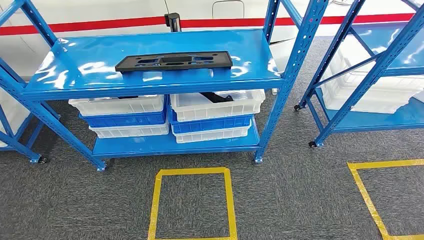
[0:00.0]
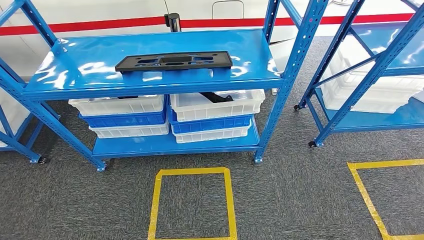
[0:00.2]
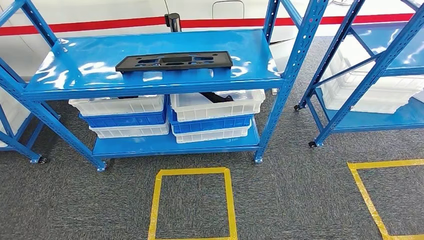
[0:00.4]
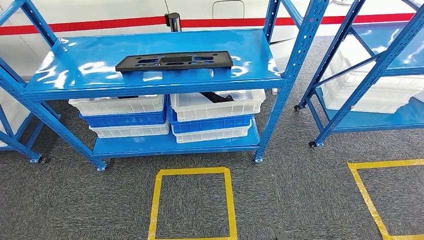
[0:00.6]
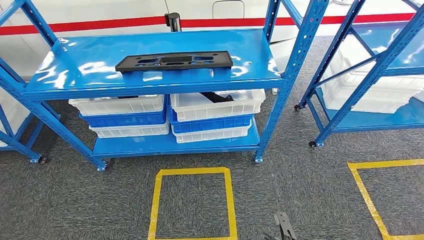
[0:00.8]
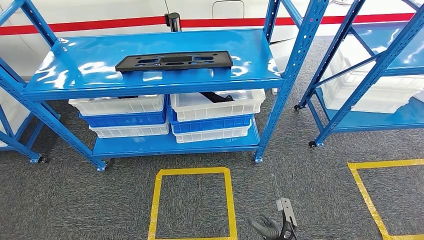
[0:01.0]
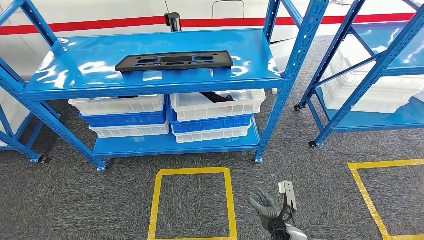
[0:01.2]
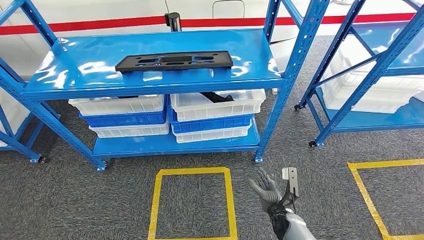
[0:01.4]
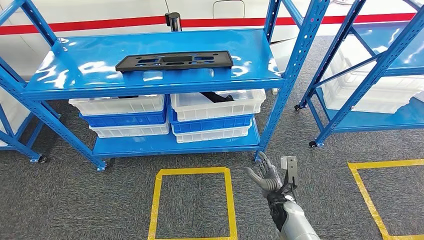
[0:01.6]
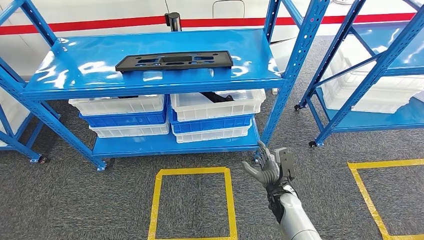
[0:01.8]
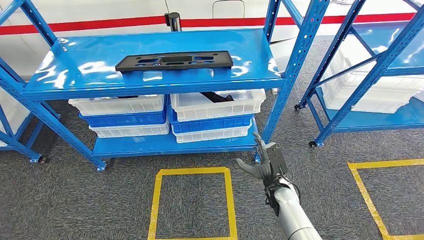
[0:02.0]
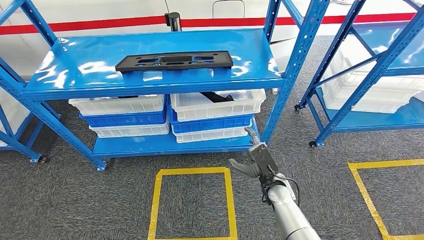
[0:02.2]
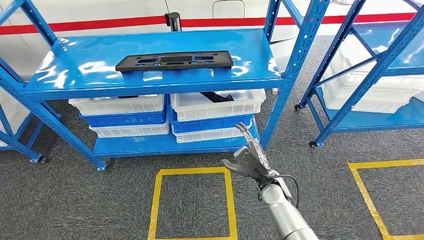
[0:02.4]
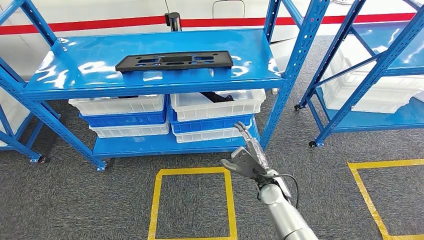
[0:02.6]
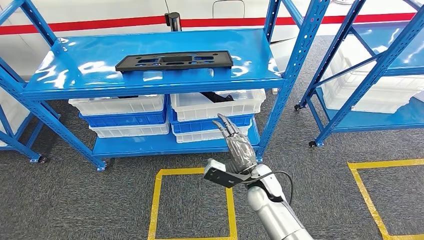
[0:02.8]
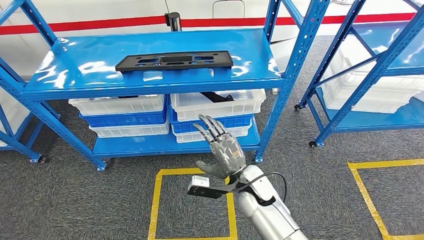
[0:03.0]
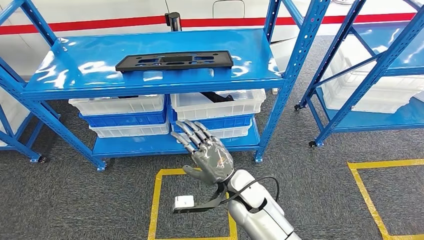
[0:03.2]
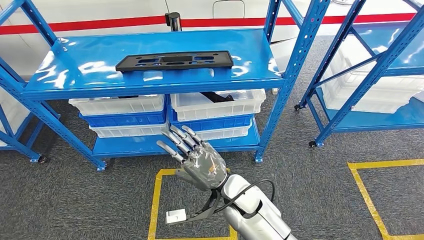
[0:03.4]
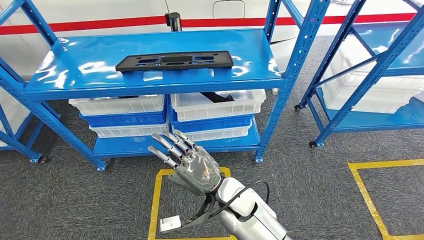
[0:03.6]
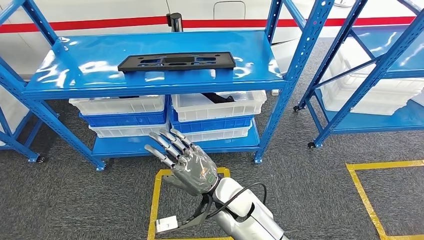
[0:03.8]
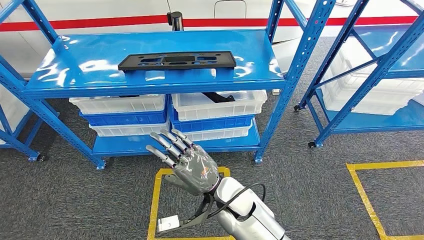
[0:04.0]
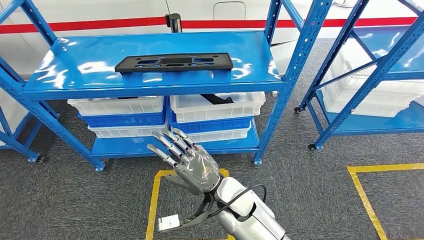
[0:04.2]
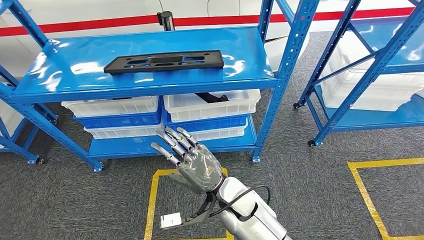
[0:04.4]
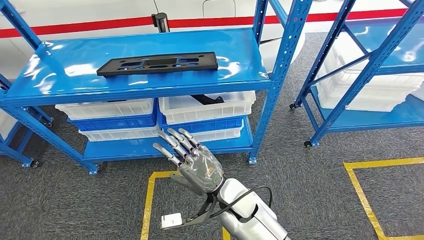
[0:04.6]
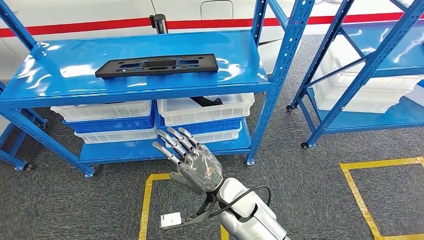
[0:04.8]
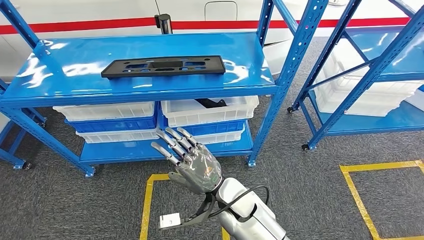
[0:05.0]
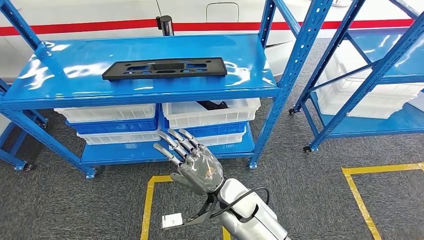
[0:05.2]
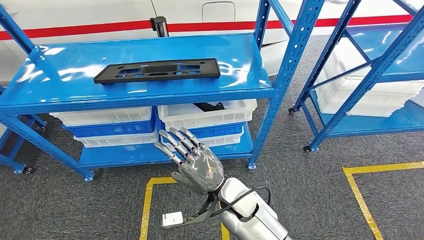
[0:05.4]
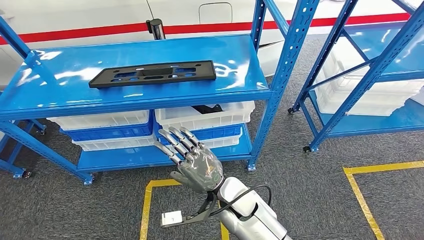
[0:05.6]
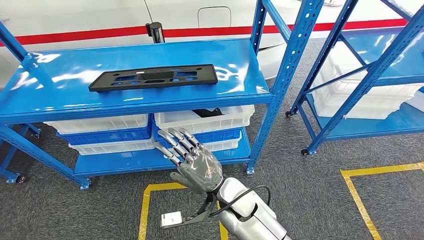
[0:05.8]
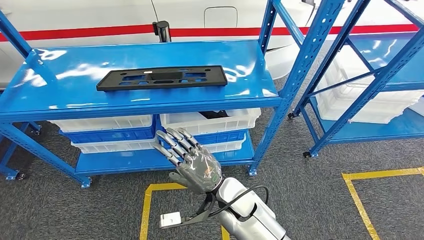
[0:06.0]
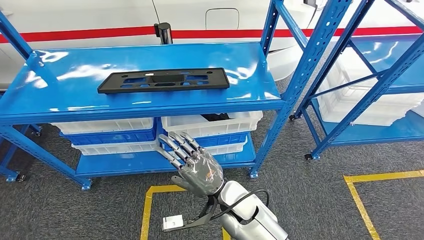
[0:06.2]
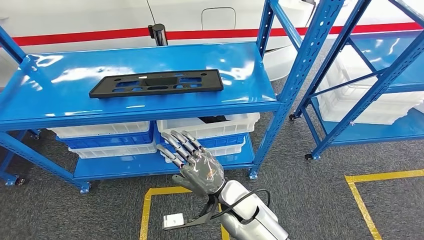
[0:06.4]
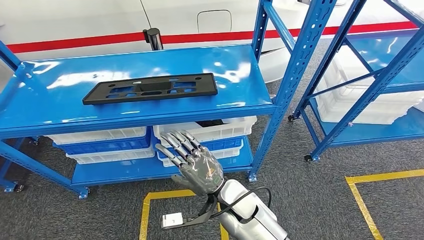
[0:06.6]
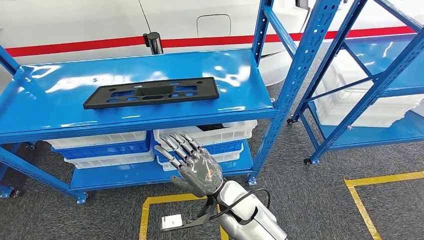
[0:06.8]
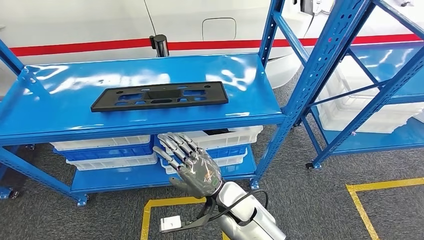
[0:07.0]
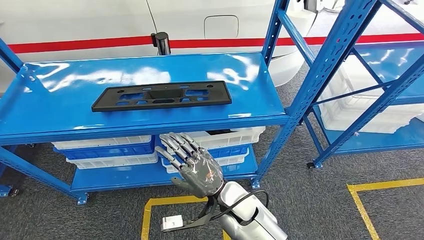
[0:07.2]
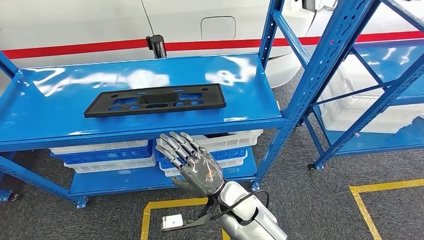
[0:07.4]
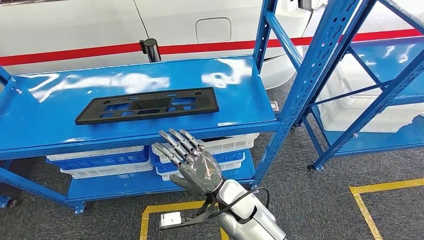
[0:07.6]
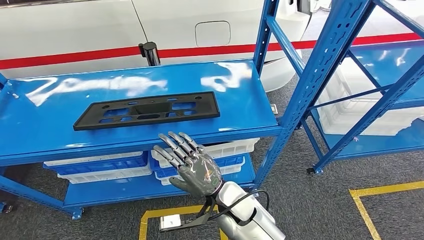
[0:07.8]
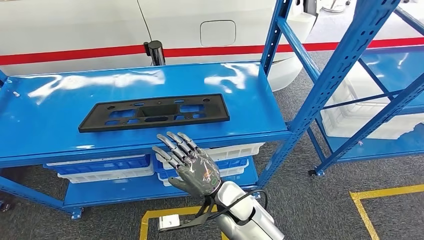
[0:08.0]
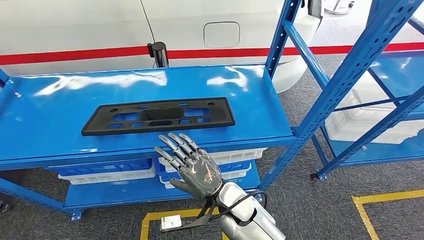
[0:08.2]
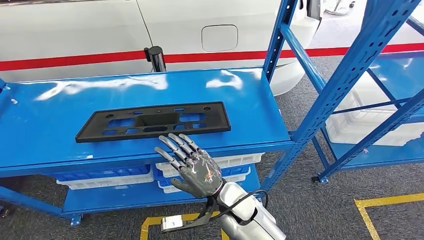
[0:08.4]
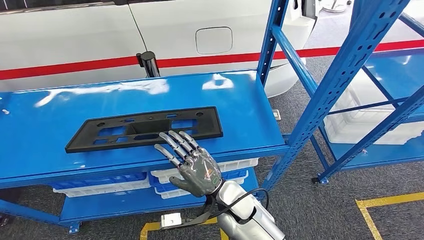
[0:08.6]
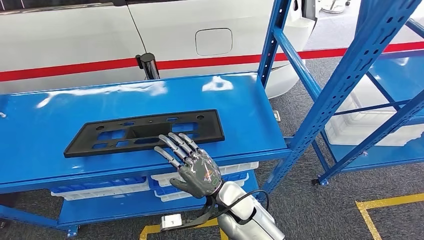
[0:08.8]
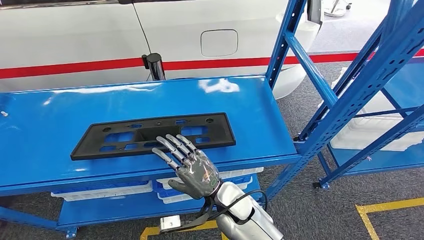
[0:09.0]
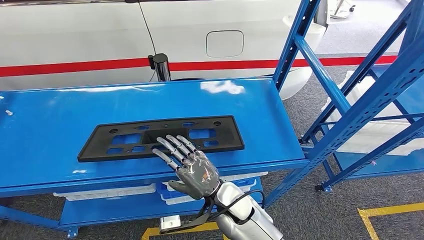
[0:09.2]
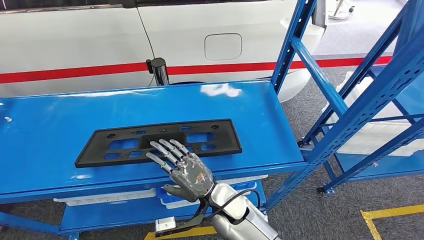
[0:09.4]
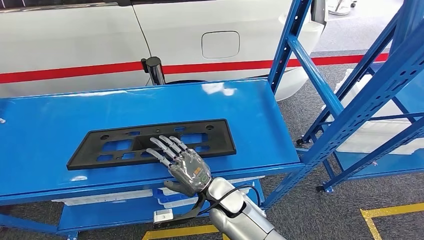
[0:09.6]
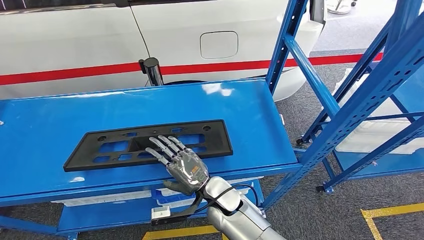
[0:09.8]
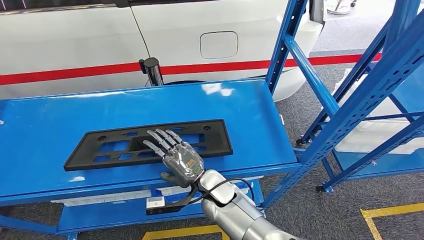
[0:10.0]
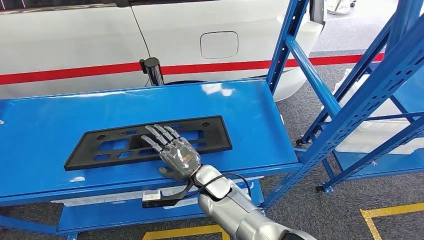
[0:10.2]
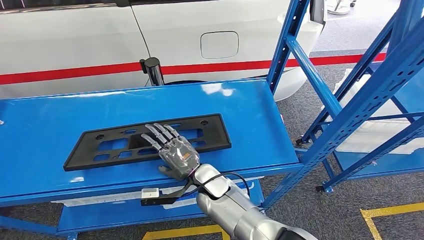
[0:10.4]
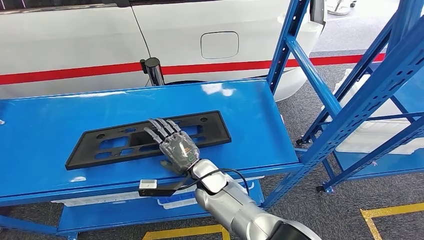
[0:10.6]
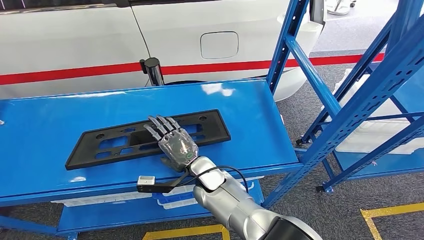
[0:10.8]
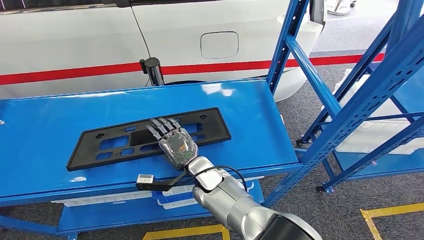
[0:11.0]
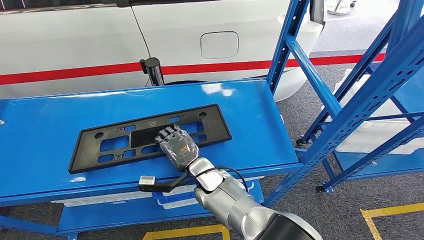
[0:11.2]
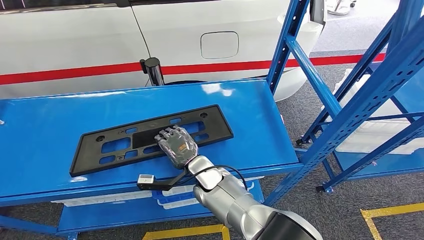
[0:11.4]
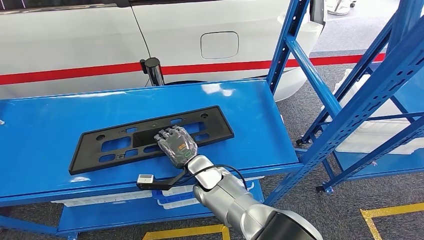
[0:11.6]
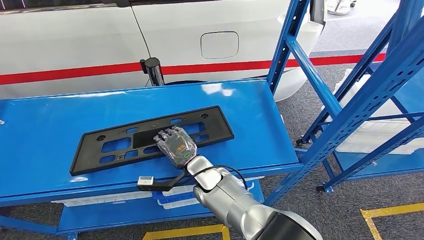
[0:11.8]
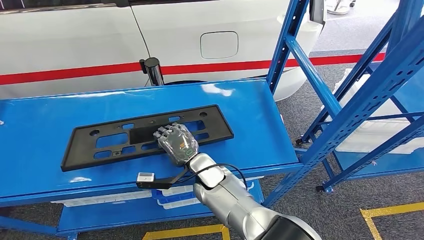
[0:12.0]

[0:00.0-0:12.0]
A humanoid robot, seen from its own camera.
0:01.6 to 0:03.0: The right hand heads upward and to the left, covering some 20 cm.
0:10.4 to 0:12.0: The hands make only small movements.

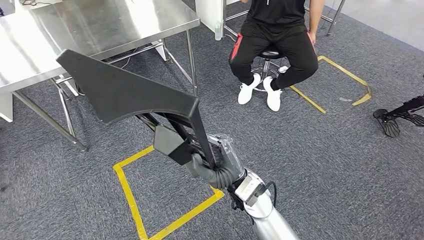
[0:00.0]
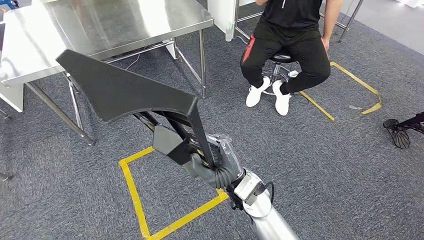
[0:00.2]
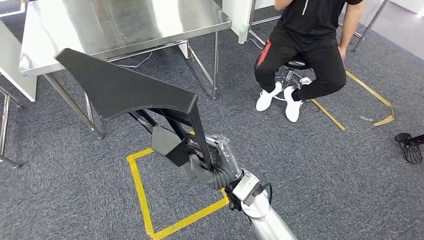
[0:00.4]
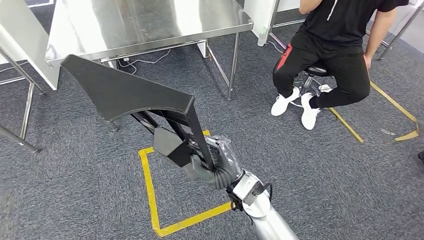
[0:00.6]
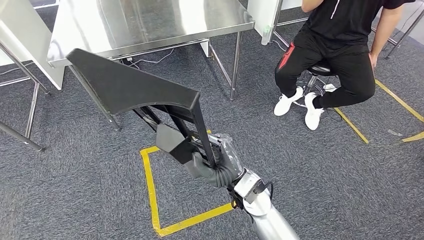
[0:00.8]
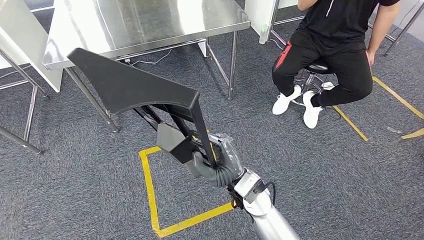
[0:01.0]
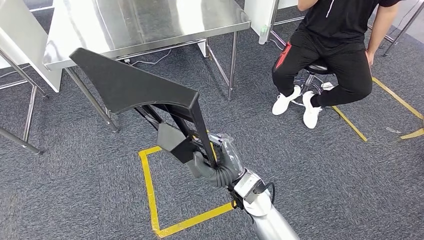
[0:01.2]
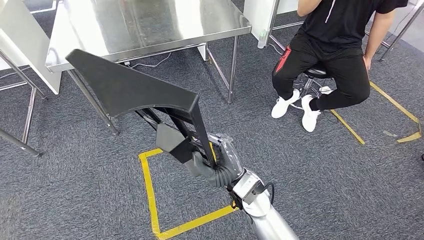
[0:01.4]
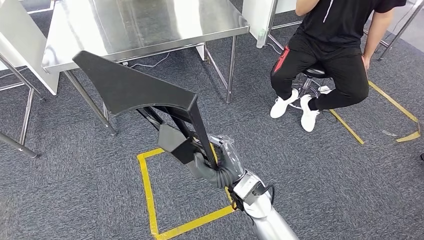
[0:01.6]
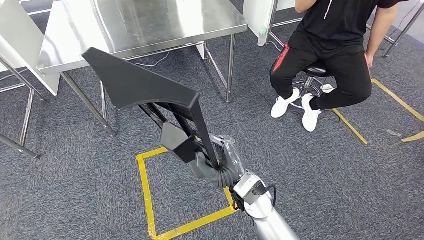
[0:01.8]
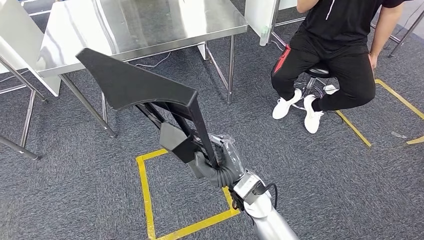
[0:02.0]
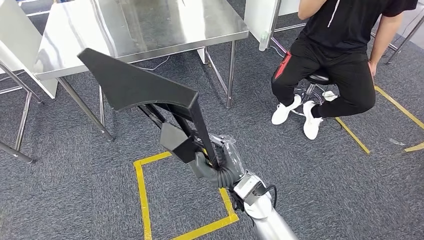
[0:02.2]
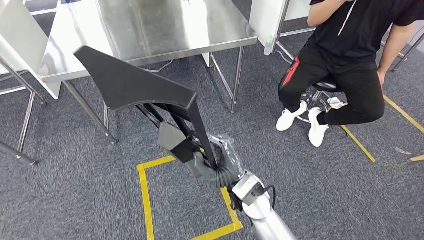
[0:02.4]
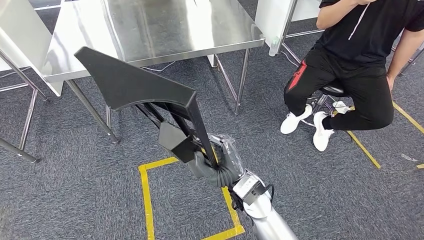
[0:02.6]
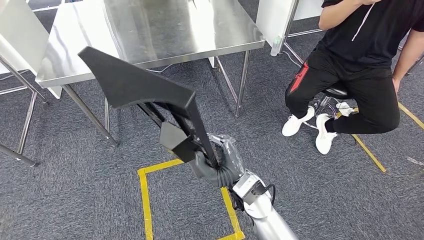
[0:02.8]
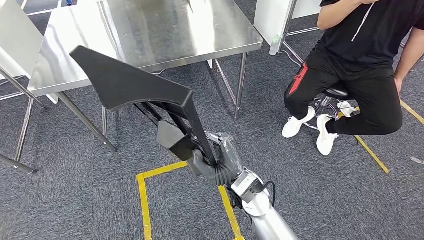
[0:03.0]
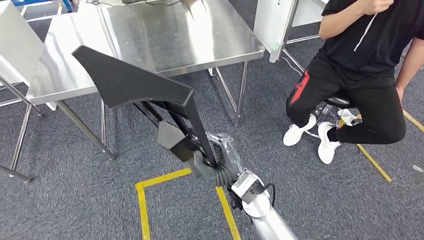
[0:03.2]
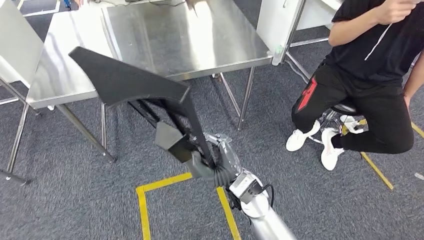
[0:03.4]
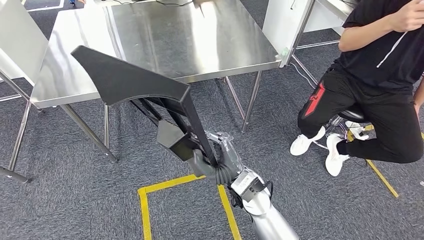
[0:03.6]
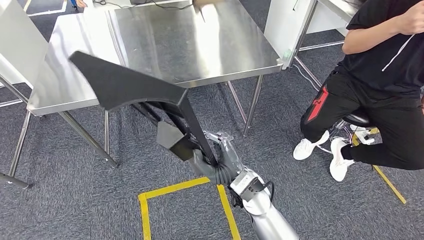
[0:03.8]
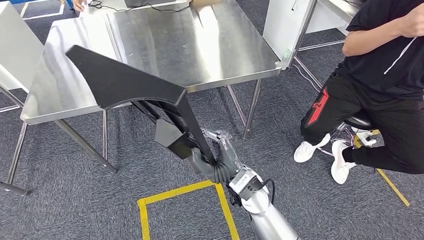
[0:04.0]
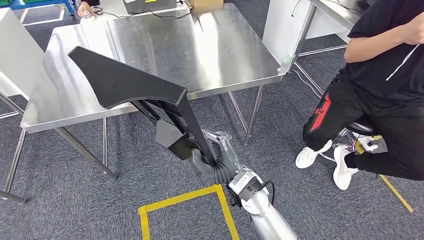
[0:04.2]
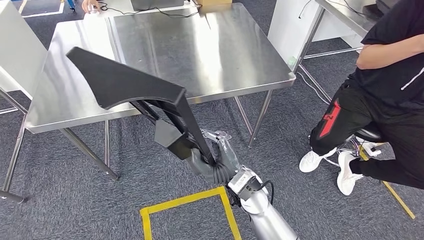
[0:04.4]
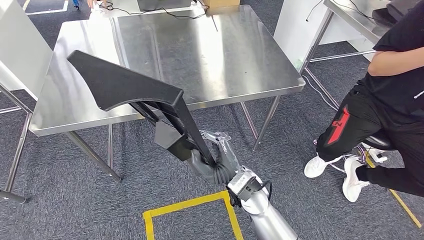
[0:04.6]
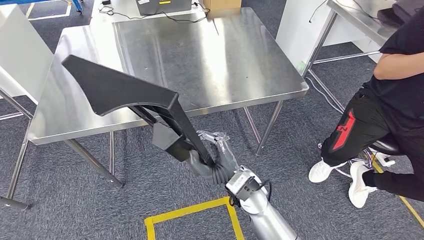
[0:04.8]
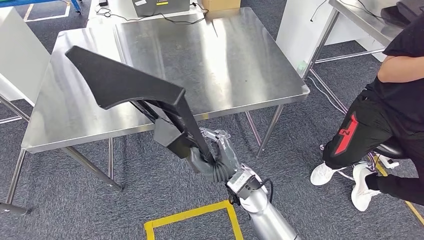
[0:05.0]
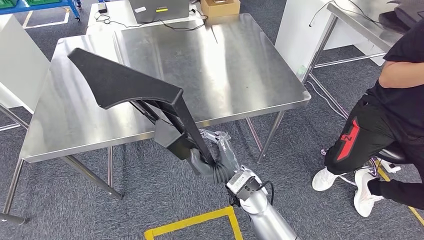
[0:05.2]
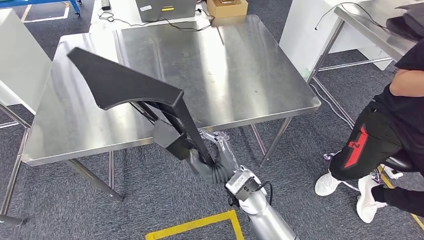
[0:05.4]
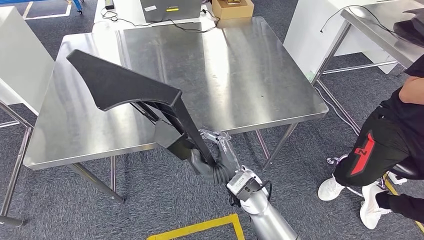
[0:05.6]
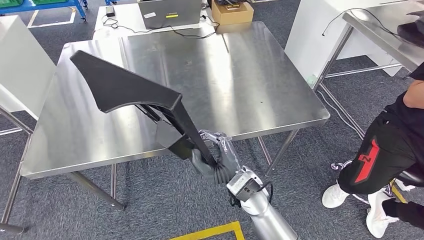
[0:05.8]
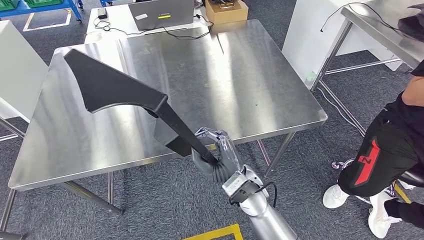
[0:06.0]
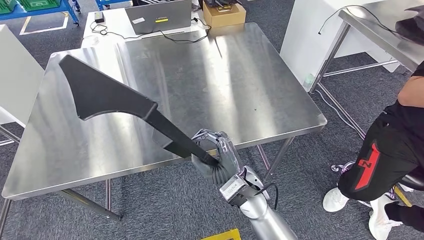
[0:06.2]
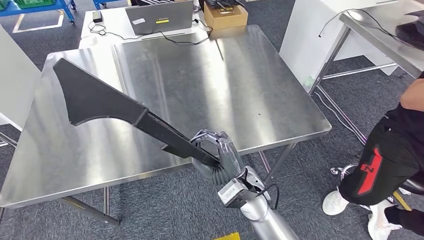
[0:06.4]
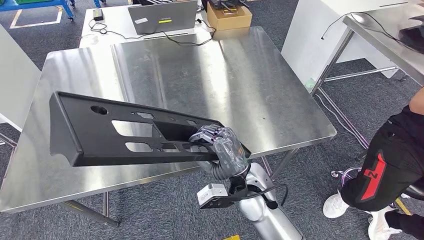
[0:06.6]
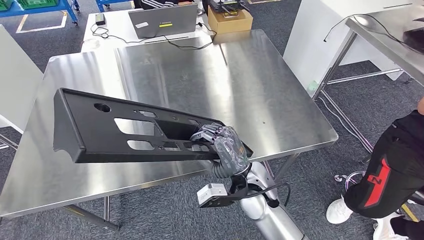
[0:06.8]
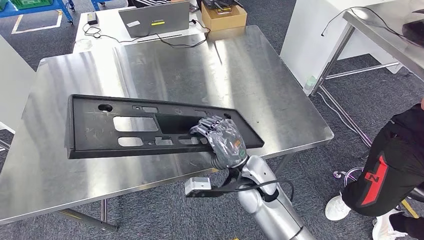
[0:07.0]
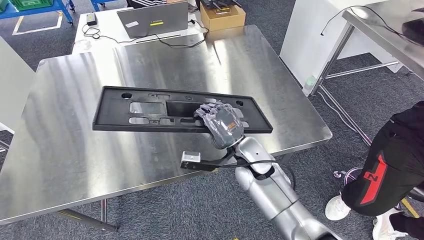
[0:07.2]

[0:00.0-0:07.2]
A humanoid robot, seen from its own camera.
Step, 0:00.0 to 0:04.4: Move the large material to the workbench.
